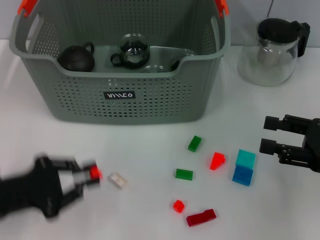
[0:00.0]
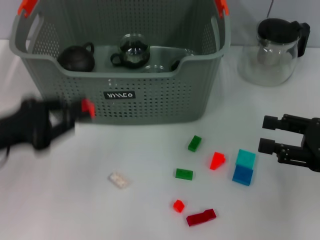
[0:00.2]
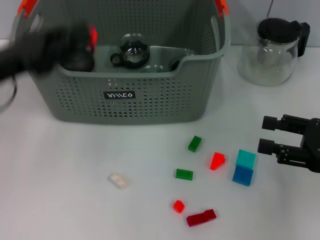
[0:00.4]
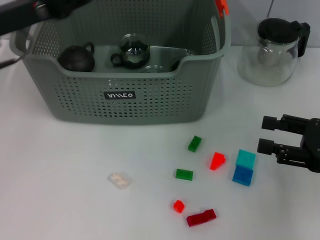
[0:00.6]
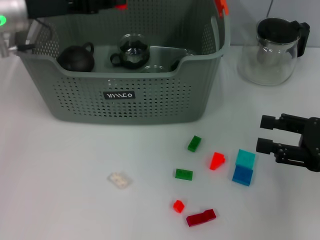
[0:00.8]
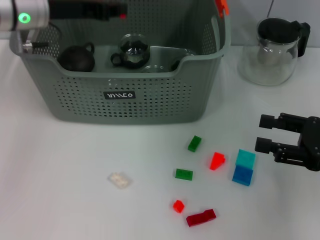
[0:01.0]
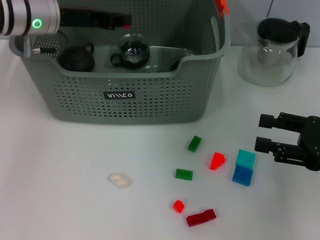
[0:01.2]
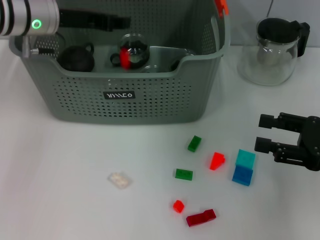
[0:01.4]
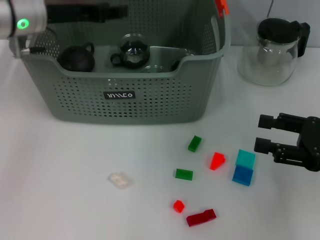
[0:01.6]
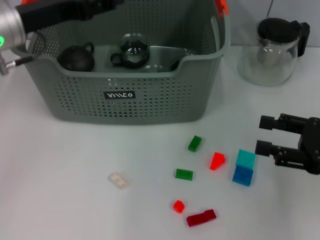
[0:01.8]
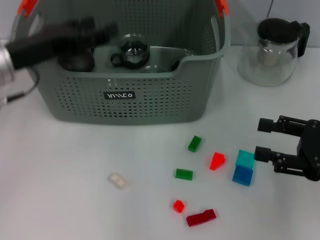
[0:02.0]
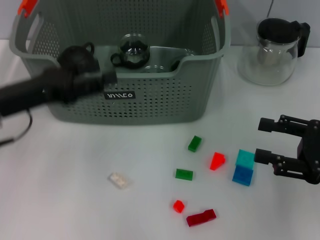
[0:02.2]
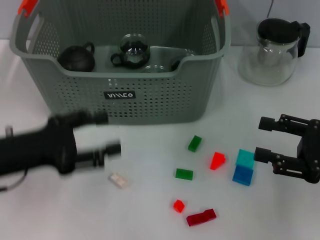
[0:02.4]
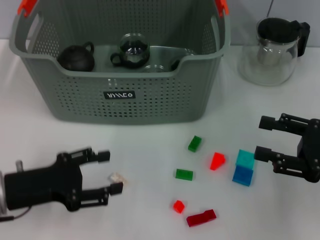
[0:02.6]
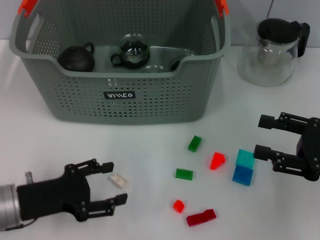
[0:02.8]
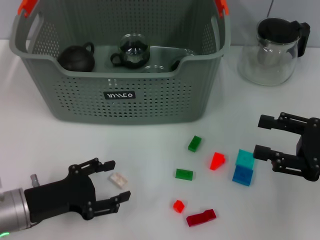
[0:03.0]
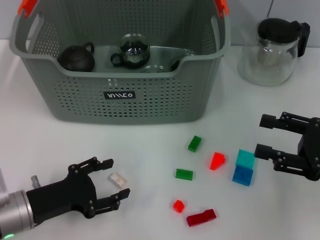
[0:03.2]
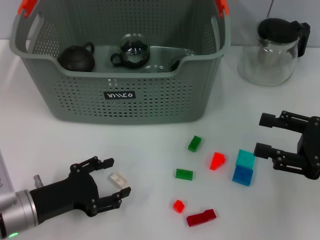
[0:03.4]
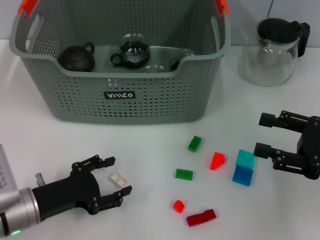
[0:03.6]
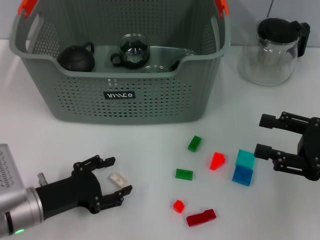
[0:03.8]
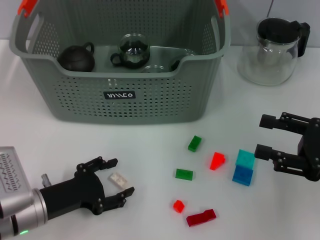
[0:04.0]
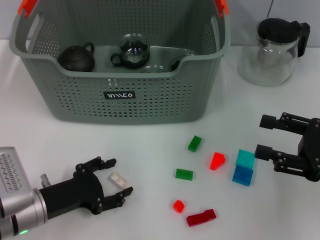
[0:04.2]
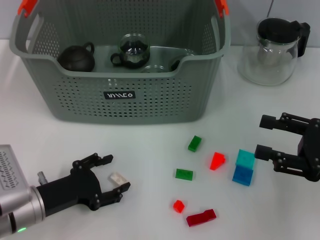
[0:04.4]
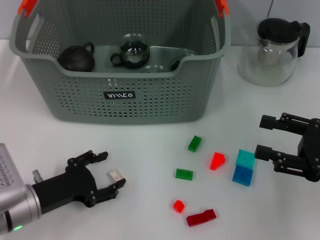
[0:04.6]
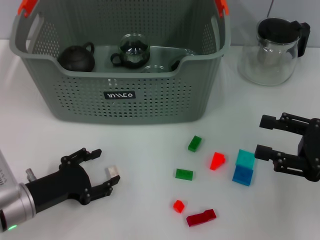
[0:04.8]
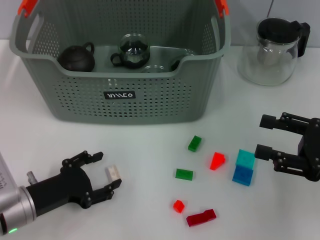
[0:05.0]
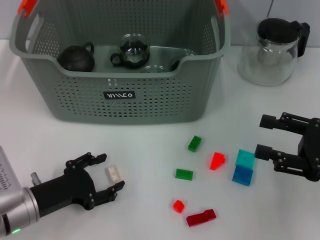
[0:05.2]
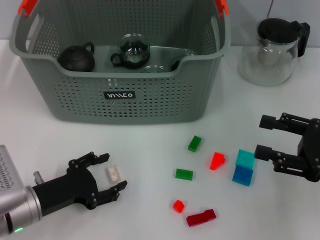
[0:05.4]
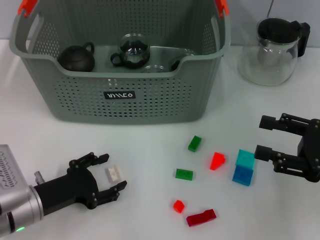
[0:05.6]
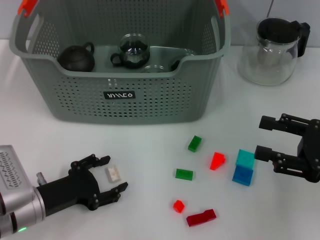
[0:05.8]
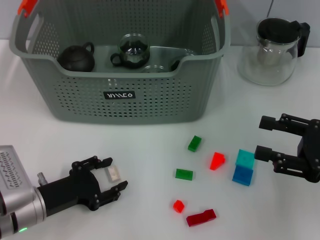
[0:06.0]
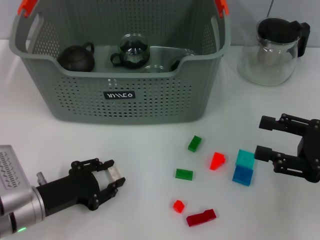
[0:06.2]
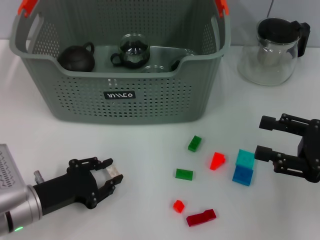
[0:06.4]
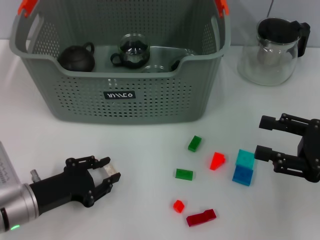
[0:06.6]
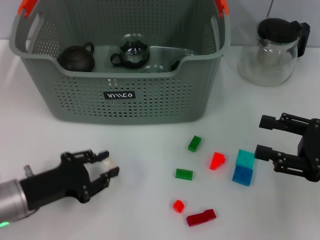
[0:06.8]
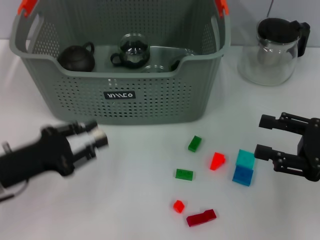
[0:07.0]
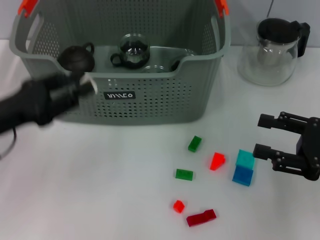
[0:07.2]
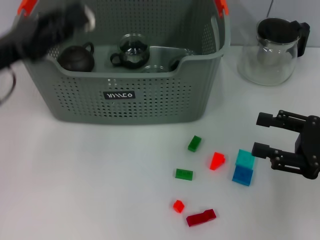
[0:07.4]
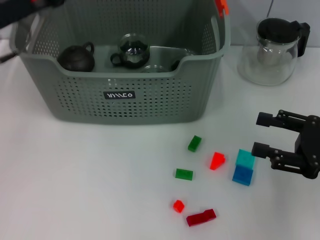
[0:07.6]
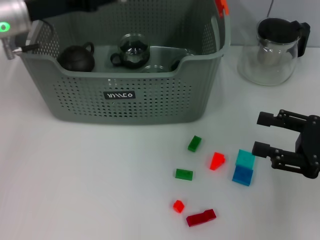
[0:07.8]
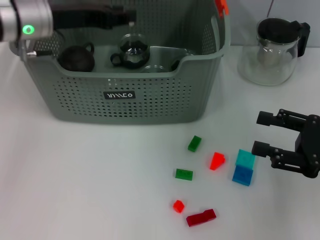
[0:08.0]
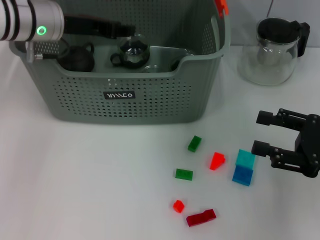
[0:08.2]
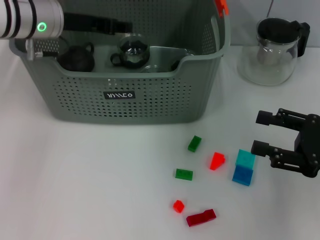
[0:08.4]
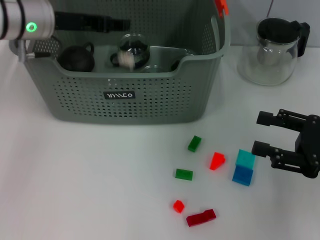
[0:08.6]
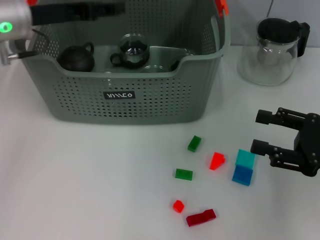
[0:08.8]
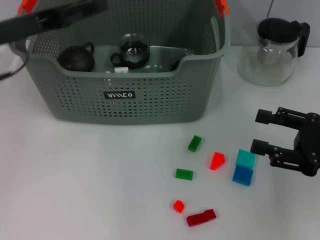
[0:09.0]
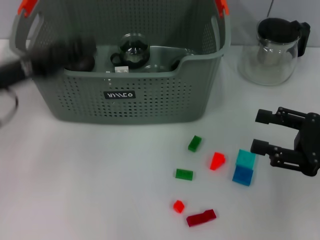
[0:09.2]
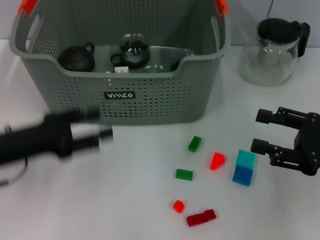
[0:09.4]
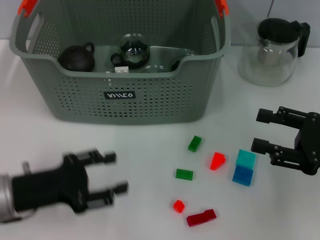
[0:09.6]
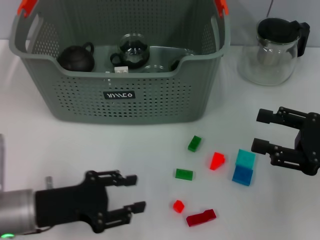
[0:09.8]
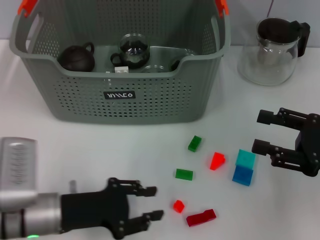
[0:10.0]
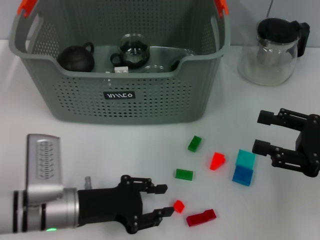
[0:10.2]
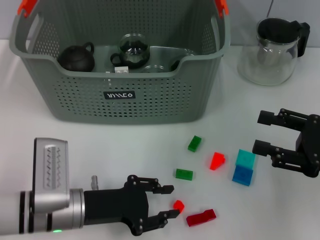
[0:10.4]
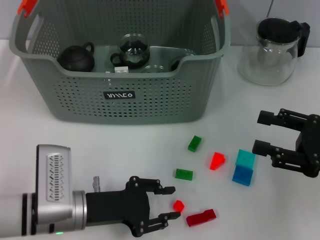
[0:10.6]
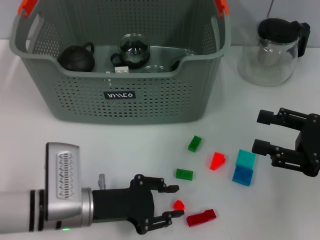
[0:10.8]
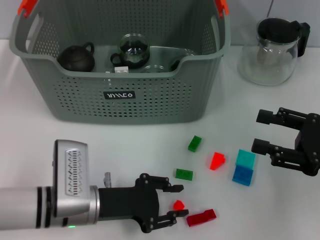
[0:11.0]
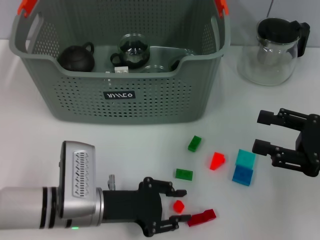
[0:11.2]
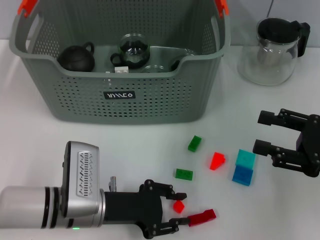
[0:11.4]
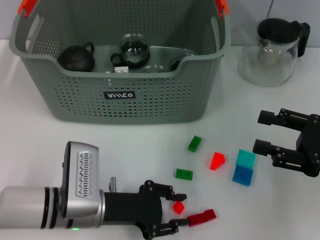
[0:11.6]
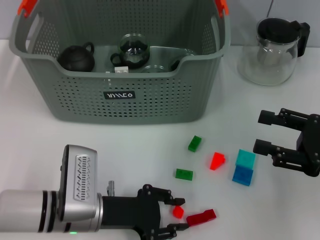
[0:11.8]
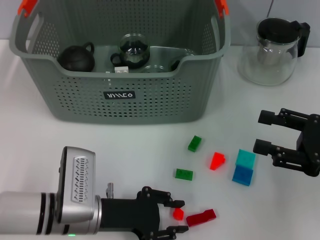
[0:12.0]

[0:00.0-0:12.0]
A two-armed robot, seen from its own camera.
Task of the whole recording: pick up the teacup on the table and place it into the storage bin, pick up the block on the table and place it into the storage bin.
Step, 0.0 to 1.6 s: Place the orange block in the storage box with left gripper.
Step, 1.8 to 6.2 s: Grasp the white block with left gripper.
Step, 6.4 to 8.6 s: Place the white block in the storage box with left gripper.
0.0 to 1.6 s: The left gripper heads forward and upward, covering some 25 cm.
1.6 to 3.0 s: The left gripper shifts approximately 25 cm backward and downward, and opens.
3.0 to 4.4 s: There are only small adjustments of the grippers.
4.4 to 6.0 s: Neither gripper changes place.
6.0 to 7.6 s: The left gripper moves upward and forward, some 25 cm, and closes.
7.6 to 9.0 s: The left gripper travels forward and back again, roughly 5 cm each way.
9.0 to 10.4 s: The left gripper heads downward, backward and to the right, covering some 25 cm.
10.4 to 12.0 s: The grippers stay close to where they were, moving slightly.

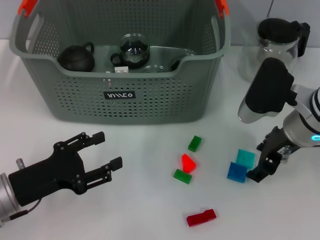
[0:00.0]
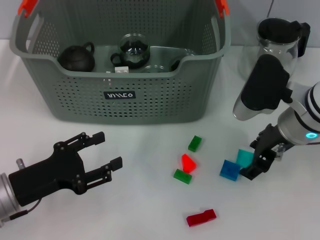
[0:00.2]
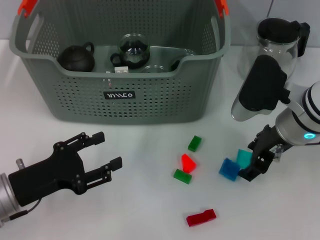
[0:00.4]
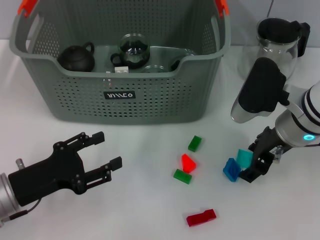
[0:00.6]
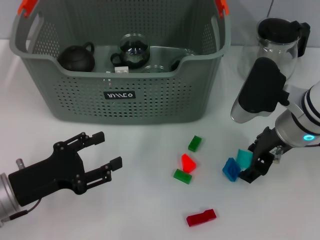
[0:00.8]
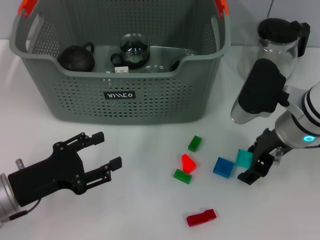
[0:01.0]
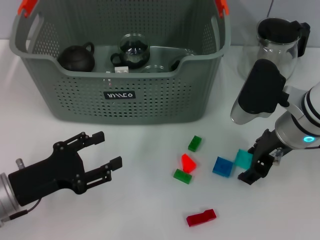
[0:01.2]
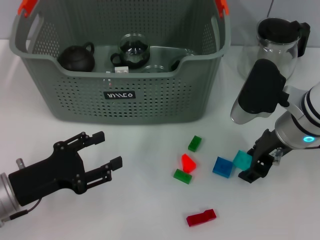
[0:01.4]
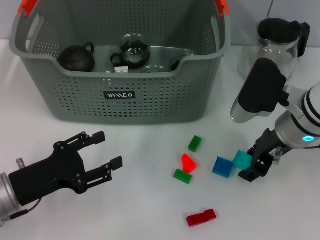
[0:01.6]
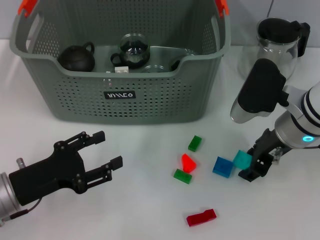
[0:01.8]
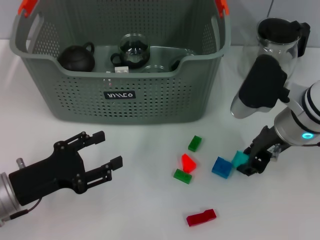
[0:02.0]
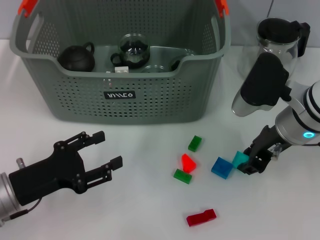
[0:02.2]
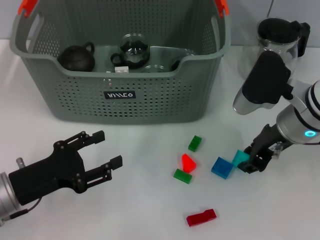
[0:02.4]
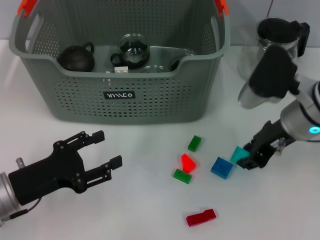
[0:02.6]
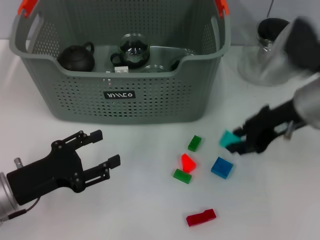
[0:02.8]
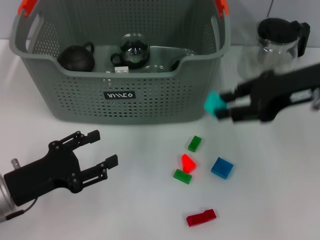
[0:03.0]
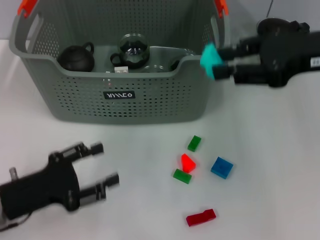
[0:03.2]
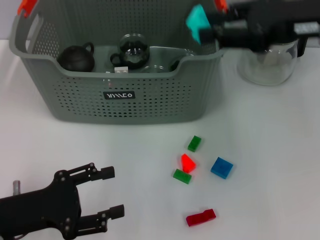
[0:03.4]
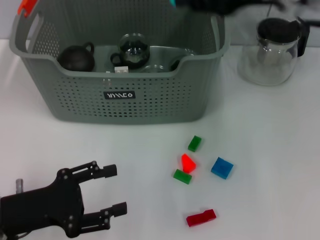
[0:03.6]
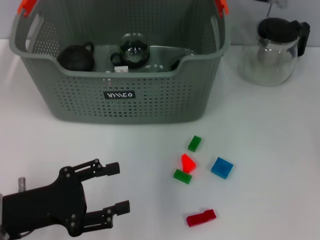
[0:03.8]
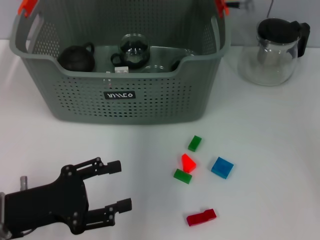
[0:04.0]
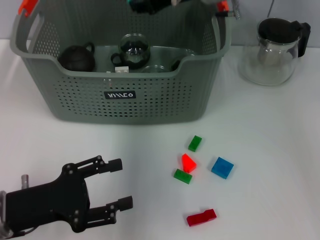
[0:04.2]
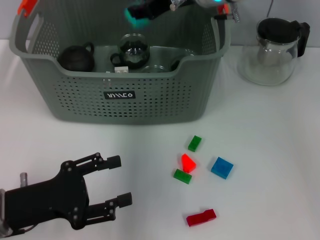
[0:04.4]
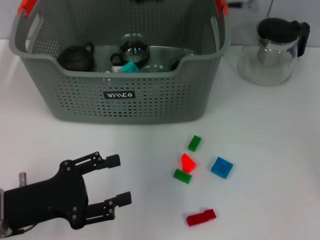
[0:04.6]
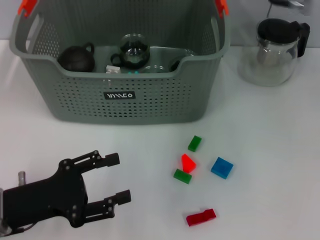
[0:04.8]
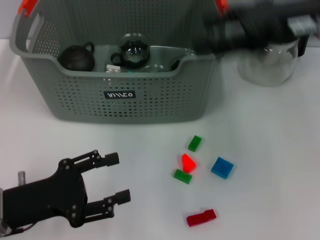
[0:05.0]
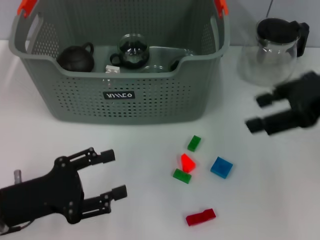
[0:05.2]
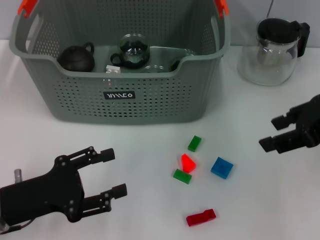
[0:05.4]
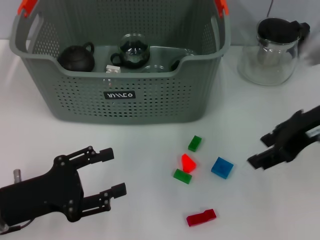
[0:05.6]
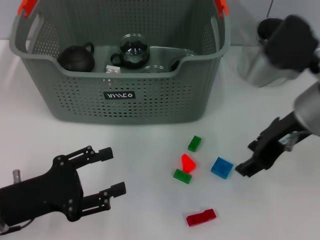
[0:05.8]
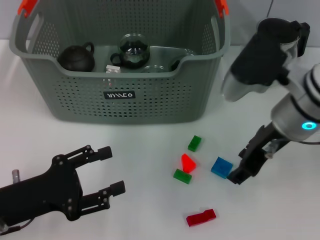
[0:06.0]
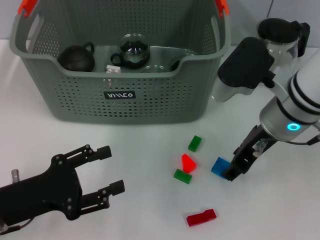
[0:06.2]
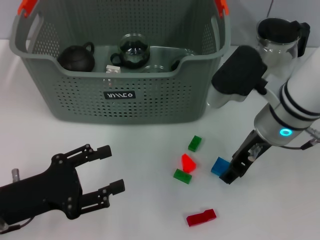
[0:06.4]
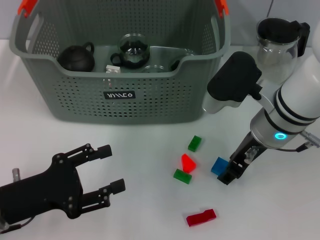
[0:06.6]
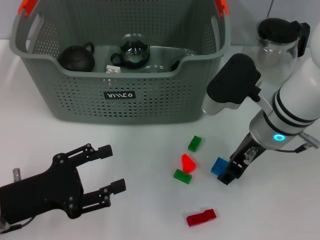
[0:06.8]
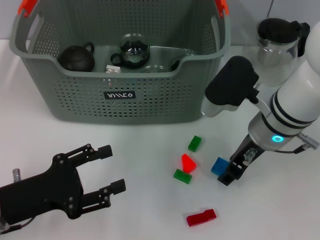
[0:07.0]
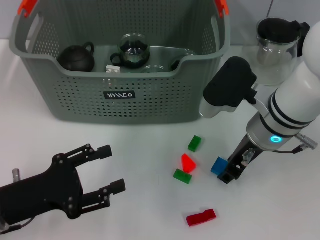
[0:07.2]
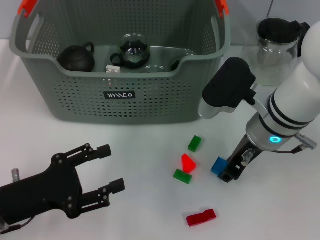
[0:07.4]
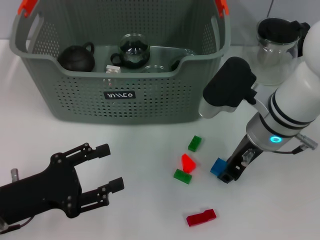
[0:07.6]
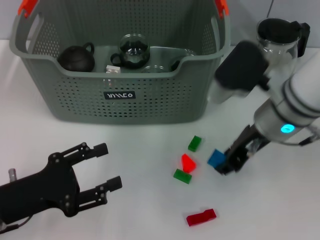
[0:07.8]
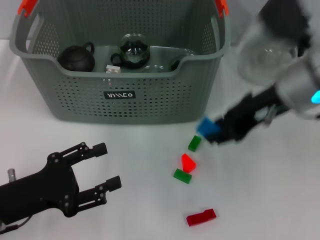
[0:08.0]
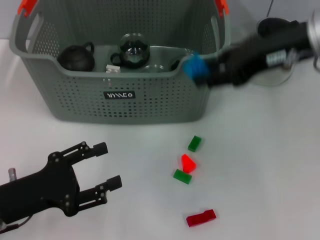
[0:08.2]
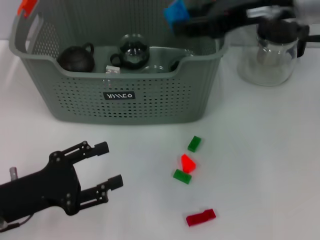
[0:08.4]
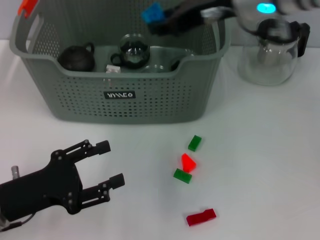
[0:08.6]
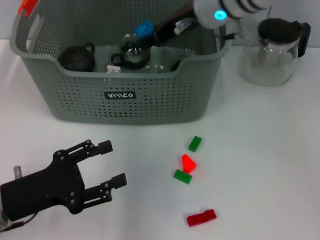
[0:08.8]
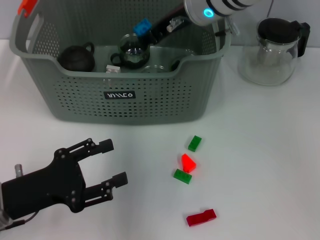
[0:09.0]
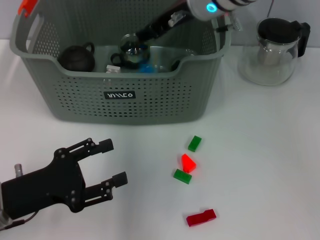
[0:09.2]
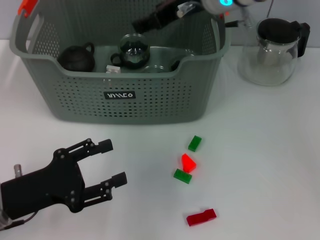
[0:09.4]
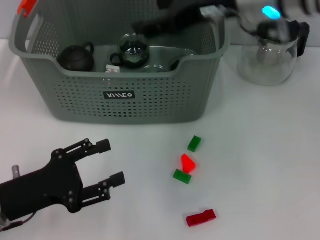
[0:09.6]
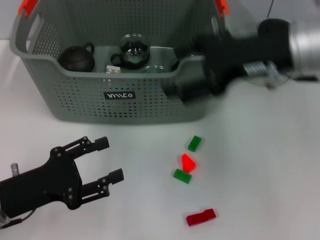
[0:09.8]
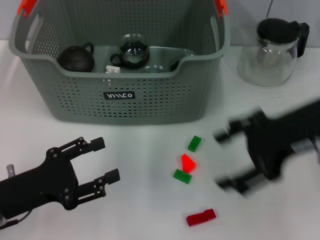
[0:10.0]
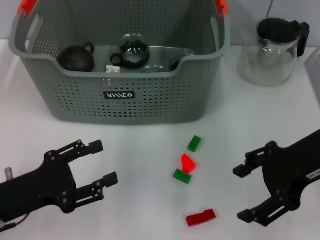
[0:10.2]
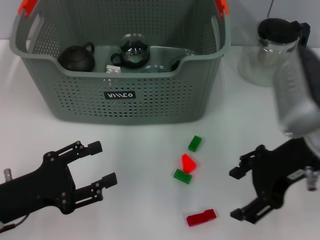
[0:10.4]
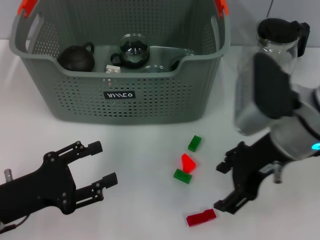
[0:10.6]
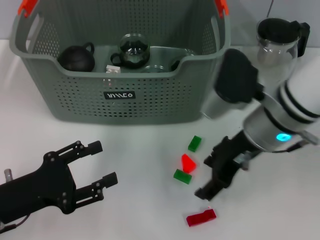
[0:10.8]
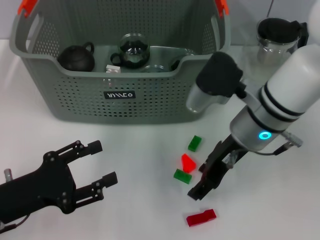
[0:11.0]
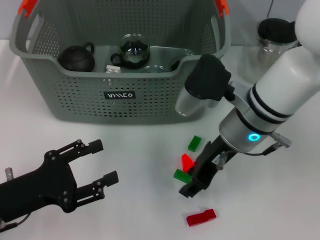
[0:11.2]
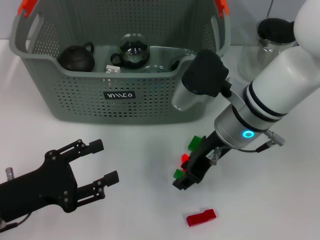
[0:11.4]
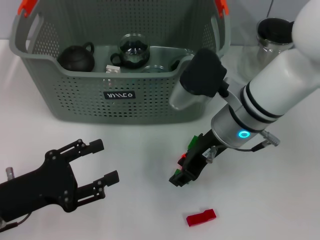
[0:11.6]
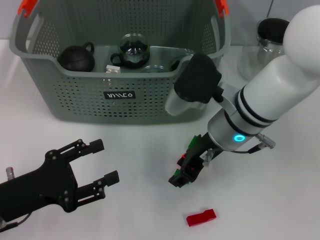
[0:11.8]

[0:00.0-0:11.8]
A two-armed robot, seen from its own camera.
Task of the whole recording: pick up the teacup on the table and place it into the storage bin, pick up the block on the table and place it into the storage bin.
Step, 0.0 to 2.0 s: Grasp the light blue block with right gripper.
Step, 2.2 to 4.4 s: Place the light blue block in the storage box with right gripper.
Step, 4.8 to 7.2 s: Grasp the dark blue block with right gripper.
Step, 7.6 to 9.4 s: Place the dark blue block in the storage box with right gripper.
0.0 to 1.4 s: The two grippers keep their place.
1.4 to 3.0 s: The right gripper shifts approximately 10 cm upward, and closes.
3.0 to 4.4 s: The right gripper heads to the left and forward, covering some 20 cm.
4.4 to 6.0 s: The right gripper is displaced backward, to the right and downward by some 15 cm.
6.0 to 7.4 s: The right gripper moves some 5 cm.
7.4 to 8.8 s: The right gripper is displaced upward, forward and to the left by about 15 cm.
8.8 to 10.4 s: The right gripper heads backward and to the right, covering approximately 20 cm, and opens.
10.4 to 11.8 s: The right gripper goes some 15 cm to the left, downward and forward, and closes.
